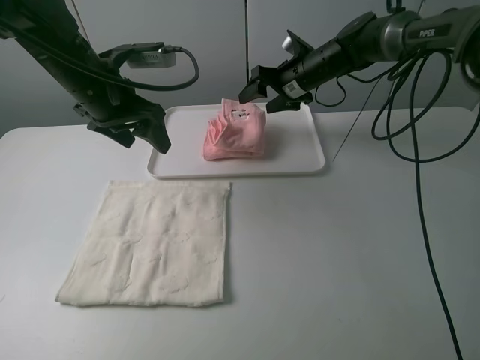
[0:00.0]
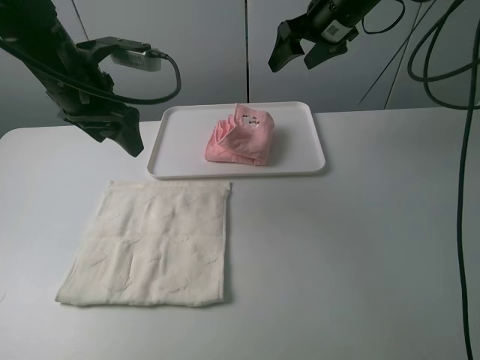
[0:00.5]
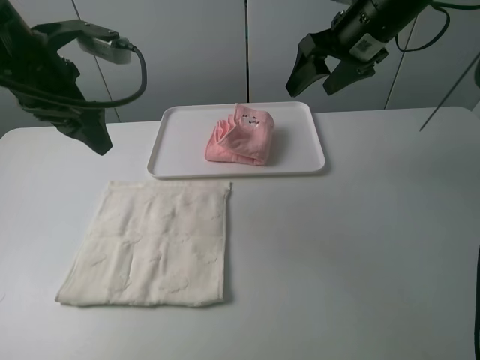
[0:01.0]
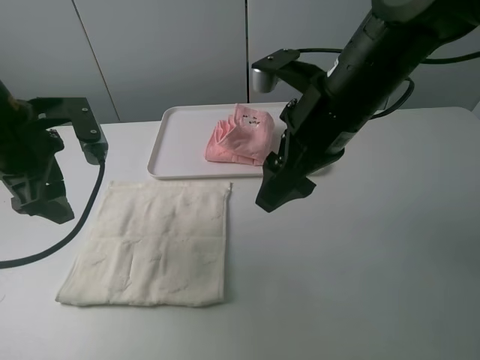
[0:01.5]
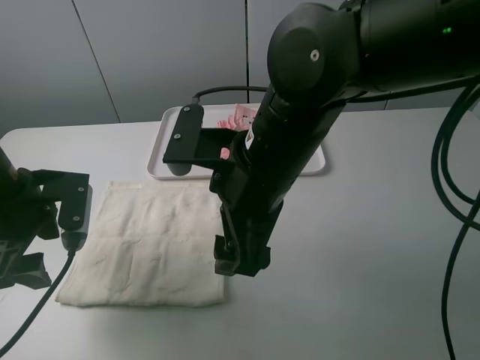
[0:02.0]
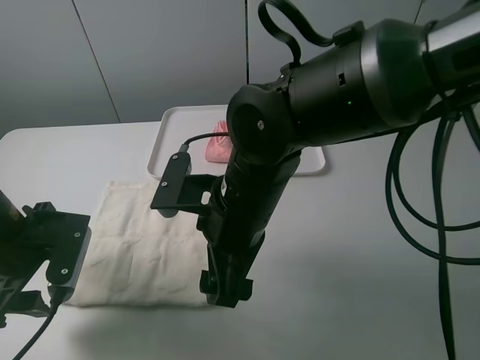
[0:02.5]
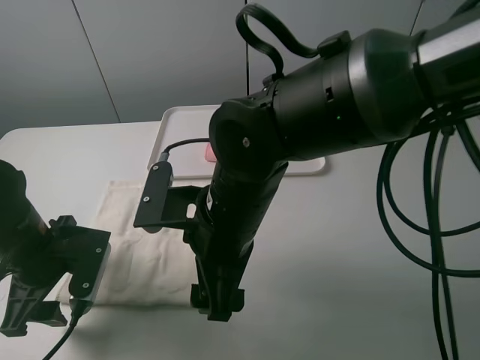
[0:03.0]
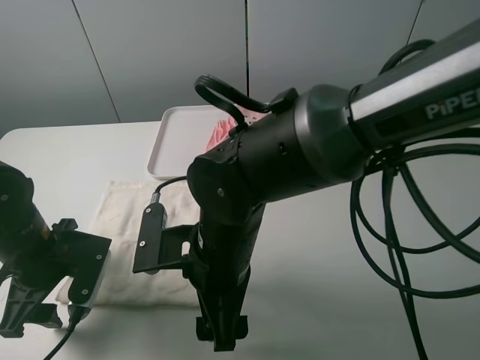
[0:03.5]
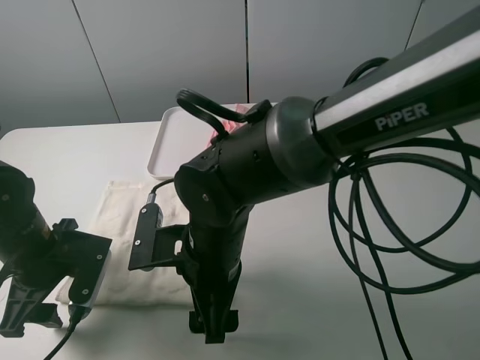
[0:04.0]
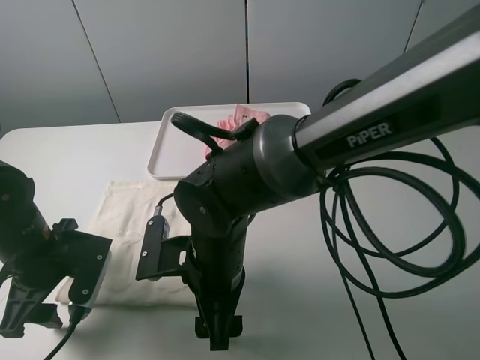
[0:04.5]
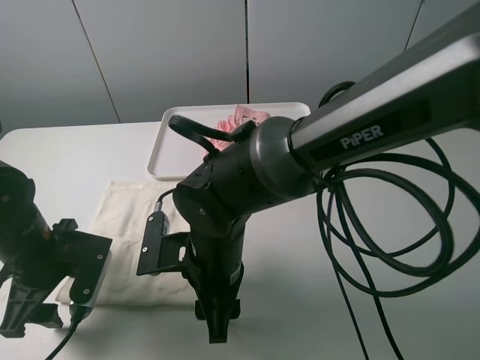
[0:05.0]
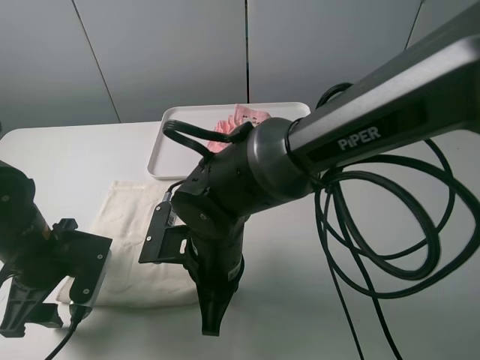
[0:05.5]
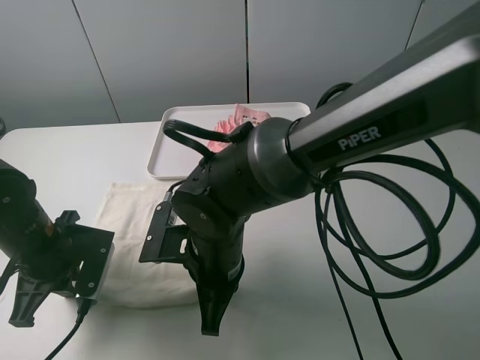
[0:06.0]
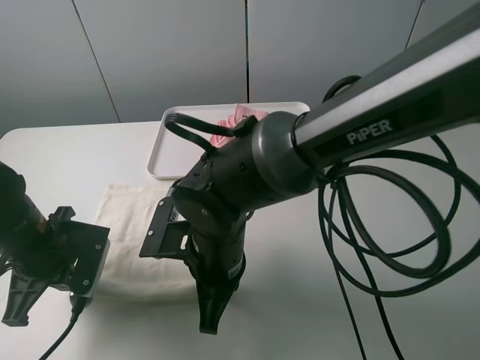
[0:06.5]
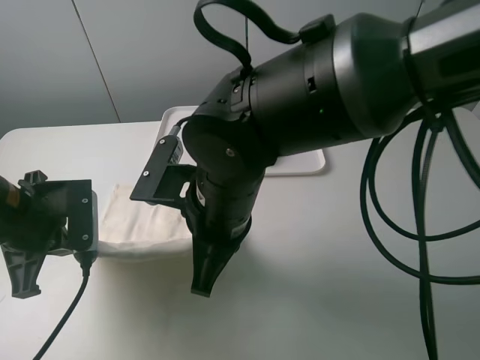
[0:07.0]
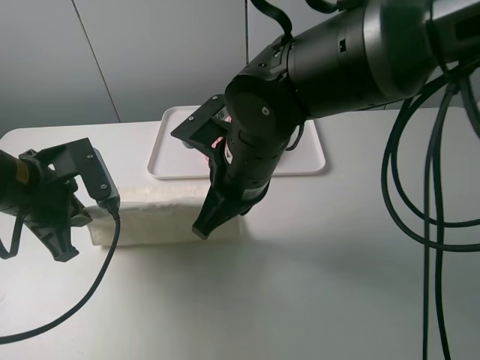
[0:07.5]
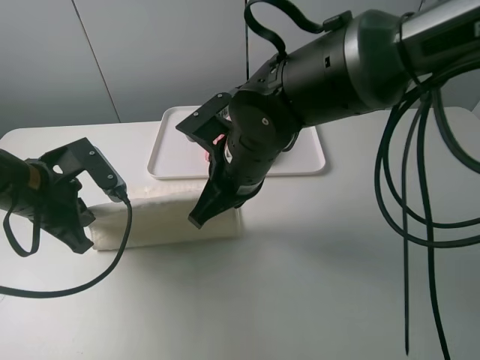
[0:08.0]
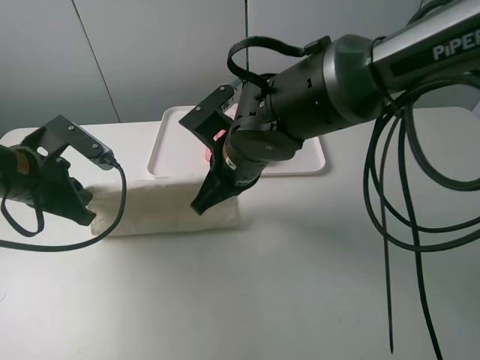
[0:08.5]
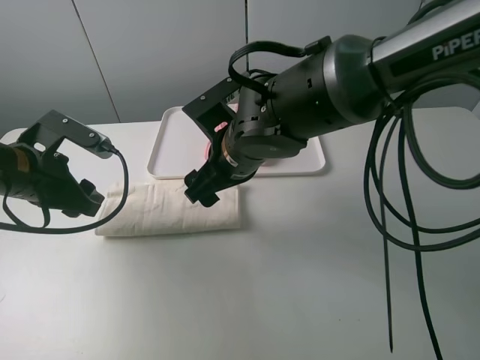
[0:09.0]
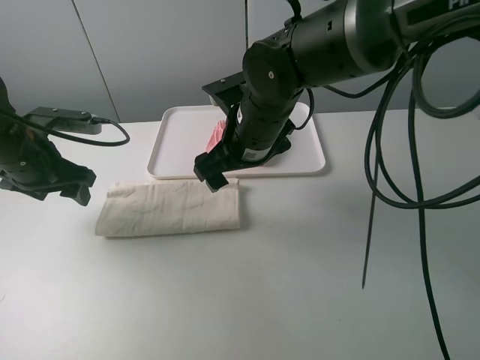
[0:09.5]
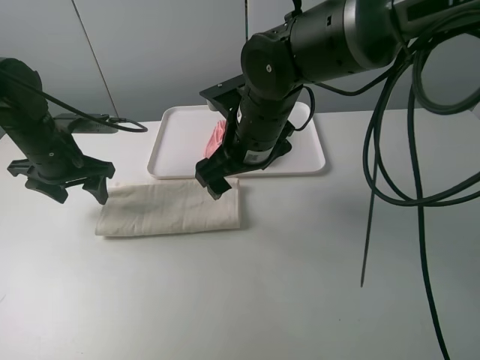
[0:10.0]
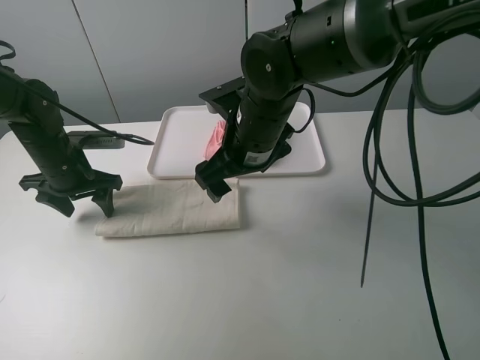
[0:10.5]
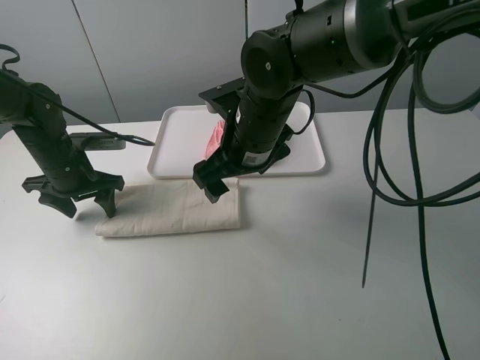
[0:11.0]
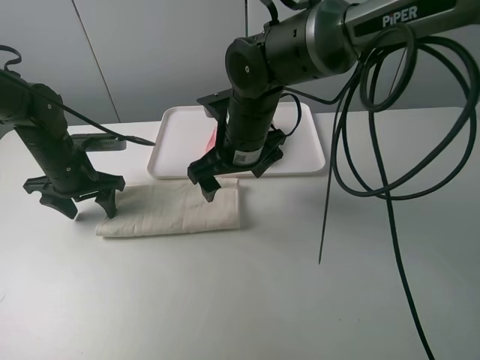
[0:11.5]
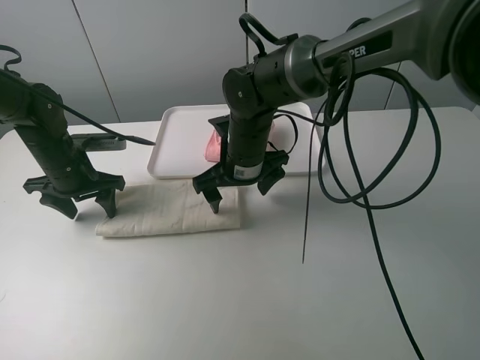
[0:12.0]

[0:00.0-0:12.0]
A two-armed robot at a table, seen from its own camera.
Task of the whole recording: fold one of the towels by two grippers and place it on the tray,then fold another towel by two grippers and place it on the folded towel.
Step, 0:00.5 to 0:06.0: Grasp the white towel with the left gripper.
Step, 0:06.5 to 0:08.5: Fold the white towel upwards with the left gripper.
Step, 0:09.5 to 0:10.5: Press the white towel with the left gripper.
0:00.0 to 0:02.0: The left gripper goes about 15 cm backward, to the left and downward; the right gripper goes some 30 cm backward.
0:02.0 to 0:04.0: The left gripper moves downward, roughly 5 cm; the right gripper moves downward and to the left, some 10 cm.
0:04.0 to 0:06.0: The left gripper closes; the right gripper closes.
0:06.0 to 0:08.0: The left gripper shifts some 5 cm upward. Meanwhile the right gripper heads upward and forward, covering approximately 10 cm.
0:08.0 to 0:10.0: The left gripper heads forward, covering roughly 10 cm, and opens its fingers, while the right gripper opens its fingers.
0:10.0 to 0:12.0: The right gripper moves downward, about 5 cm.

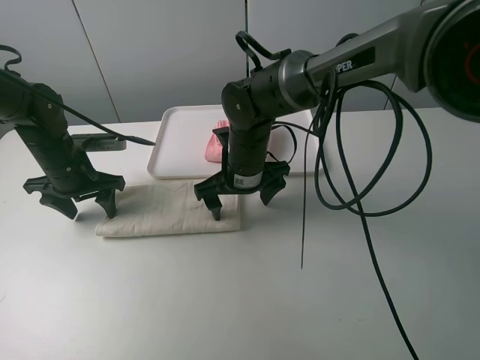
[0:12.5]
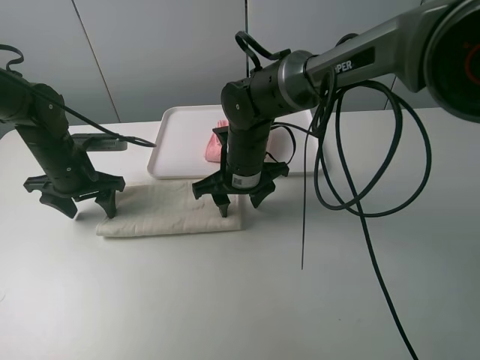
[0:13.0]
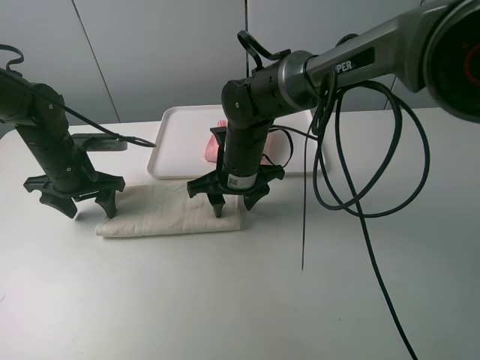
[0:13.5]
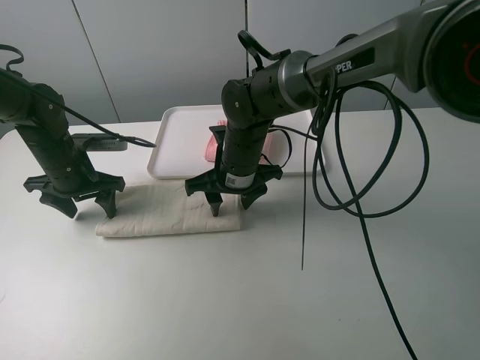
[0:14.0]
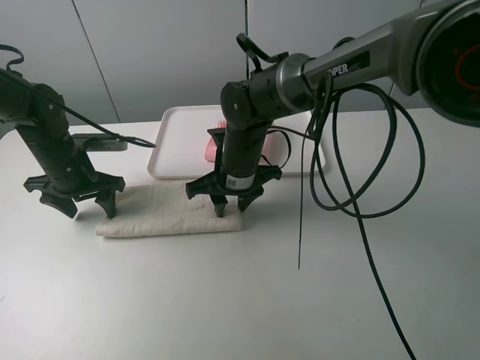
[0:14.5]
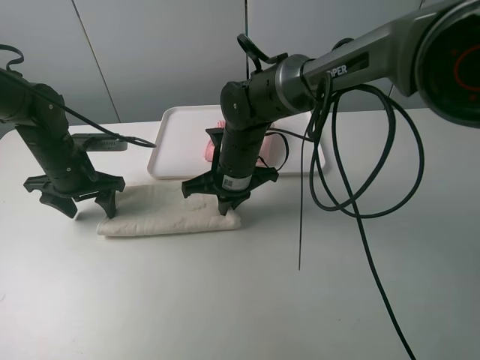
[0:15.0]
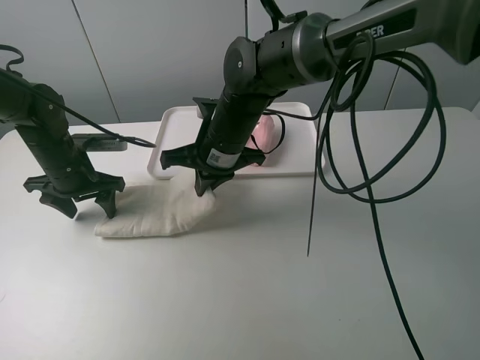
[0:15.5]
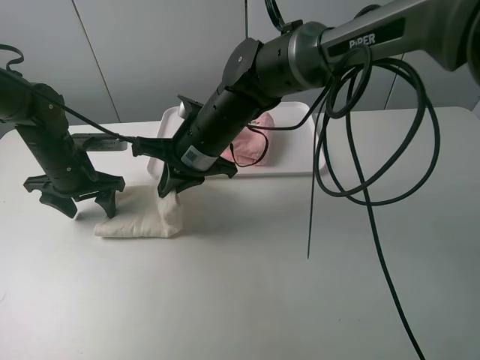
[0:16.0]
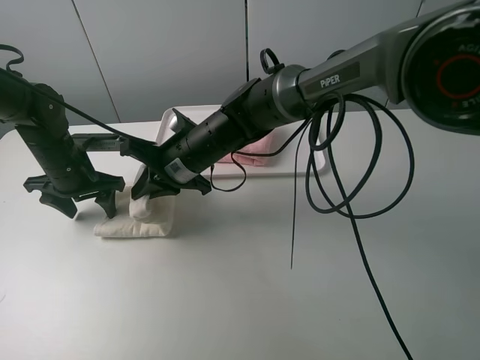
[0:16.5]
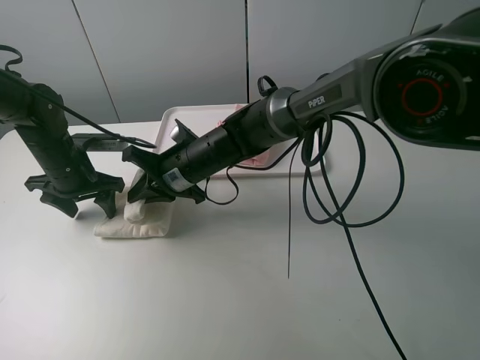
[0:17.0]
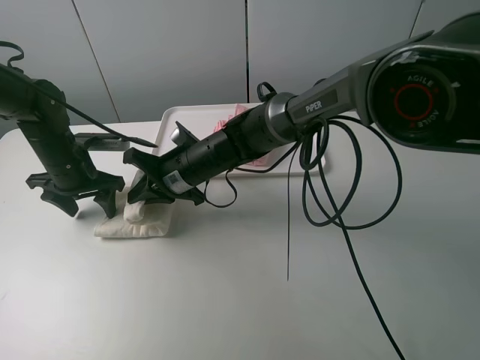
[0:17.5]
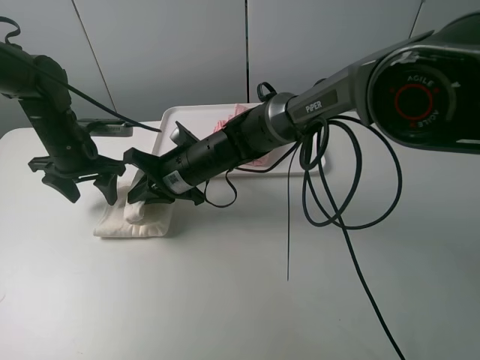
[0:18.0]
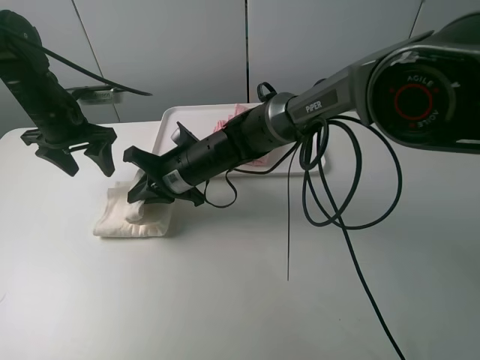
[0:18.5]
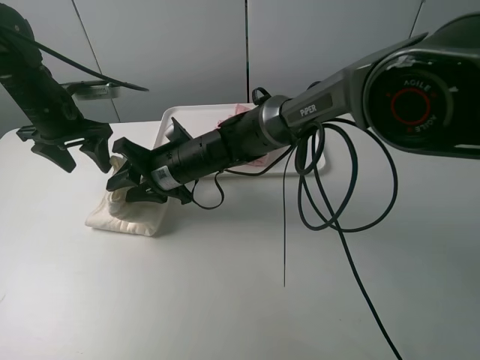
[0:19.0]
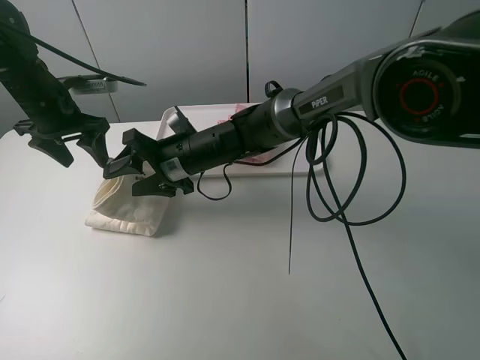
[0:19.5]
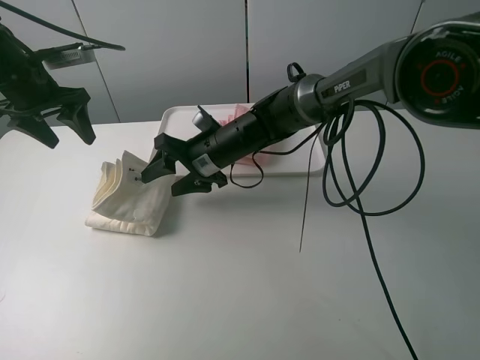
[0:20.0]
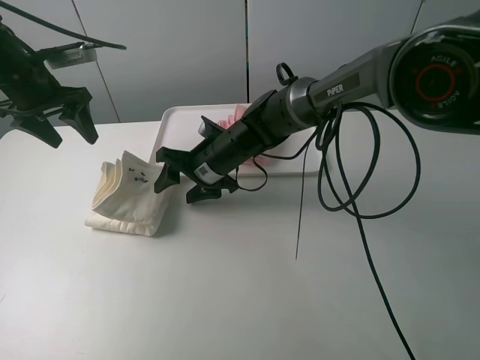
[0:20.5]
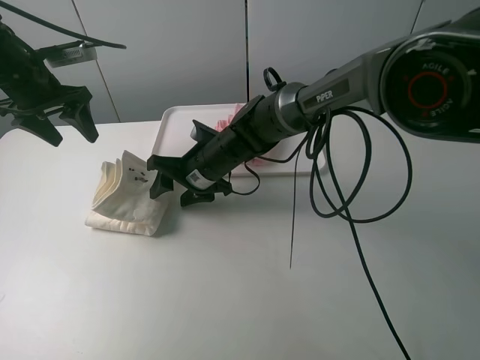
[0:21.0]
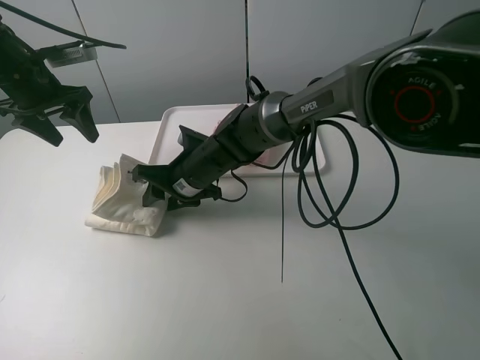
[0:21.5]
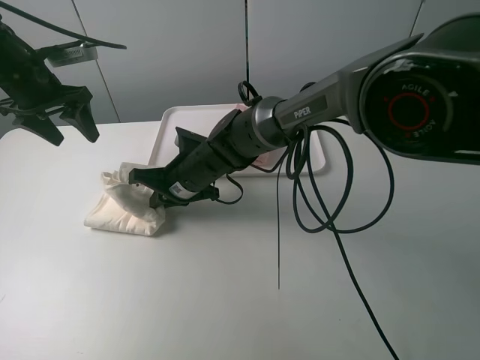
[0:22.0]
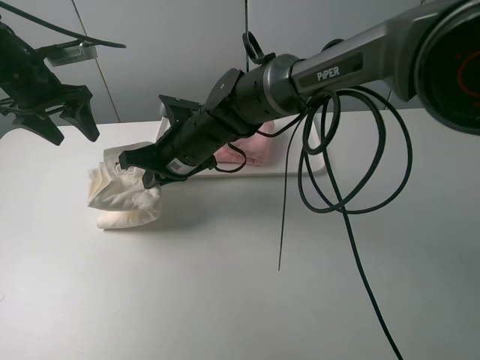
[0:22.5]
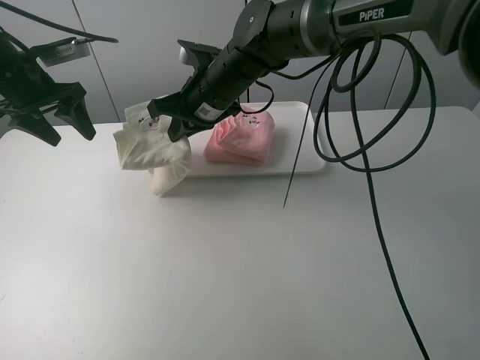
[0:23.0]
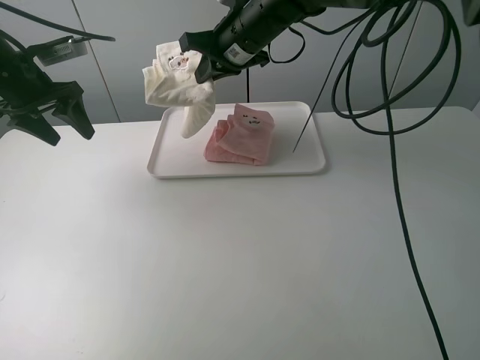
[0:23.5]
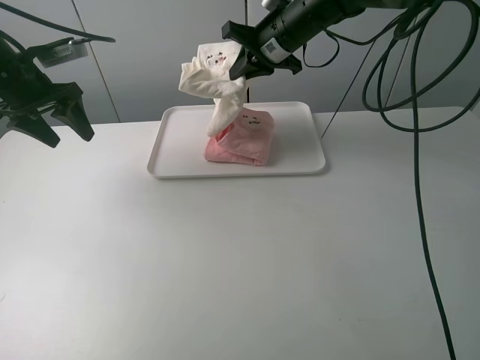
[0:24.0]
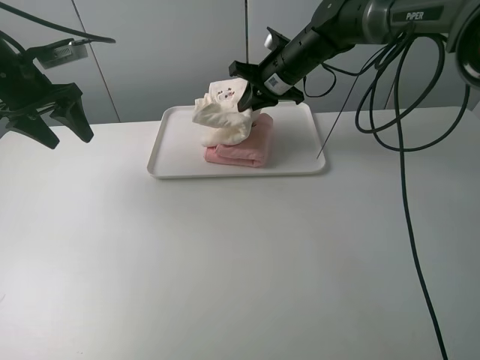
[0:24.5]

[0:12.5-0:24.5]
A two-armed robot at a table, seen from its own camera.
Task of the whole recording: fold one of the towels by two grippers and place it on the tray,then fold another towel by two grippers and place it on the folded towel.
Step, 0:12.5 to 0:14.5: Grasp the white towel with the right gripper.
Step, 0:15.0 to 0:20.0: Fold the white towel from right to left with right gripper.
Step, 0:20.5 to 0:21.5: Grasp the white towel with the right gripper.
0:12.5 to 0:14.5: The right gripper closes up.
0:14.5 to 0:16.5: The right gripper moves to the left, roughly 5 cm, and closes.
0:16.5 to 0:18.5: The left gripper goes approximately 10 cm upward.
0:18.5 to 0:20.5: The left gripper heads upward, covering some 5 cm. Meanwhile the right gripper opens up.
0:20.5 to 0:22.5: The right gripper moves upward, about 5 cm, and closes up.
0:22.5 to 0:24.5: The right gripper goes about 20 cm to the right and forward.

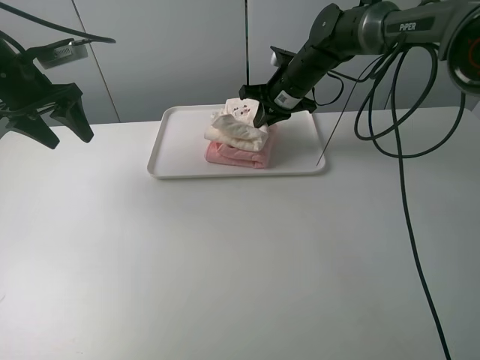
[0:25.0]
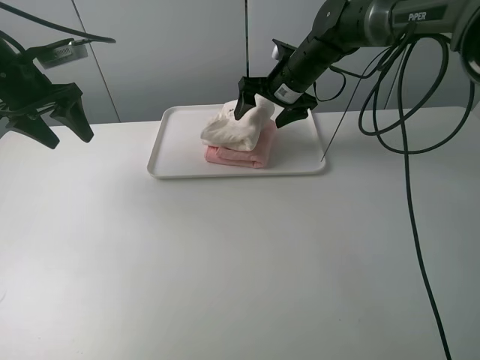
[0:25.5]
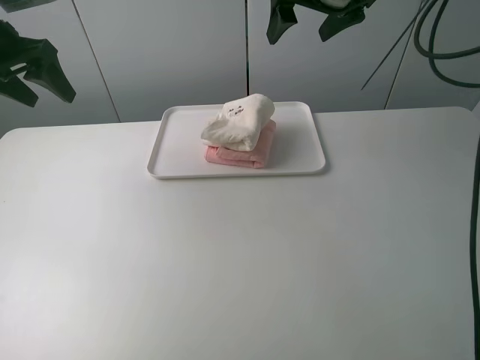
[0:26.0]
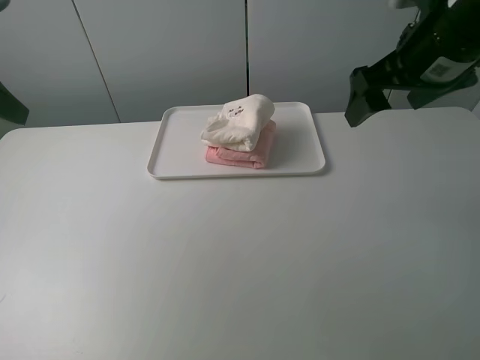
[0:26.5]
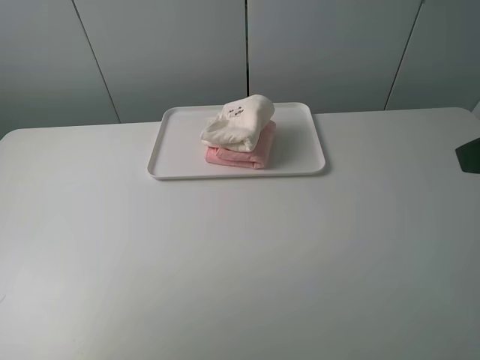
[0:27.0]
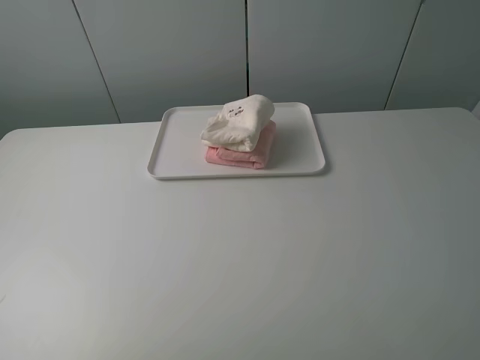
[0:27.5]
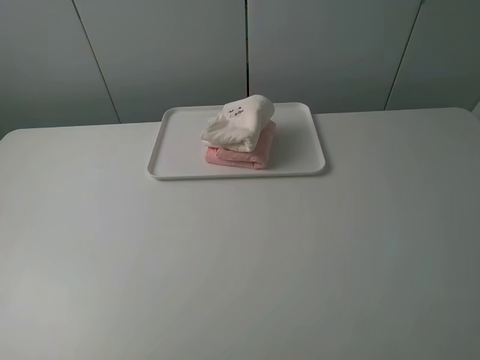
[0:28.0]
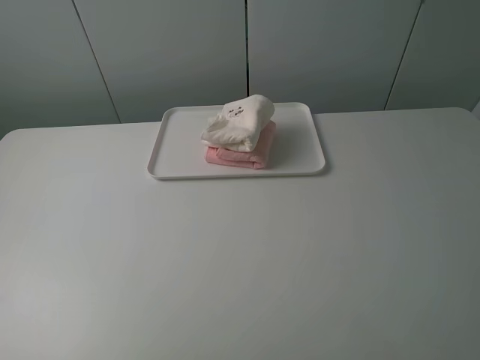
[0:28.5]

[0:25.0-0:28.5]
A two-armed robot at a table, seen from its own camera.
Task of the whole recording: fold one of the towels by two grippers and place it on the tray,then fold another towel by two grippers and place it on the folded towel.
0:25.0 to 0:27.0: The right gripper moves backward, upward and to the right, about 40 cm, and opens, while the left gripper is displaced backward by some 30 cm.
0:27.0 to 0:28.5: The left gripper travels backward by roughly 10 cm, while the right gripper shifts about 10 cm backward.
